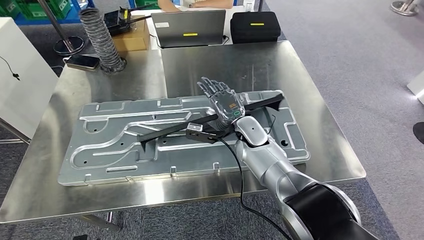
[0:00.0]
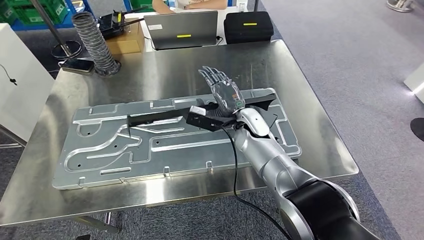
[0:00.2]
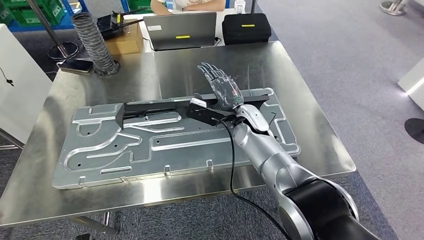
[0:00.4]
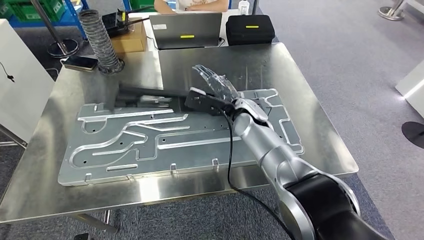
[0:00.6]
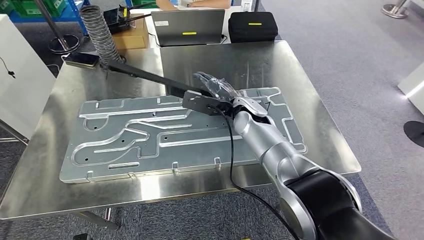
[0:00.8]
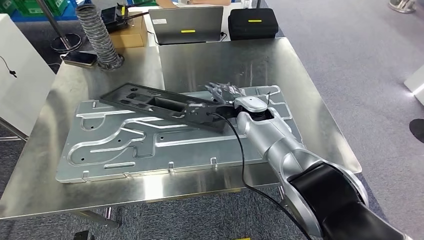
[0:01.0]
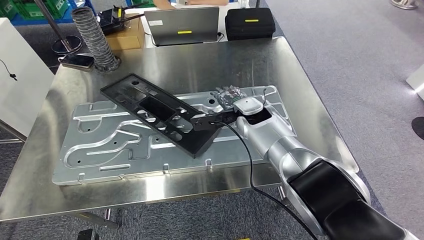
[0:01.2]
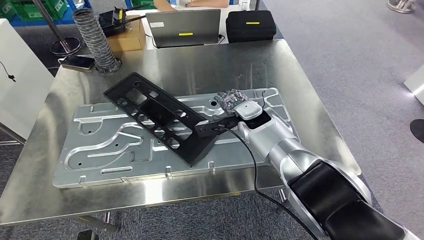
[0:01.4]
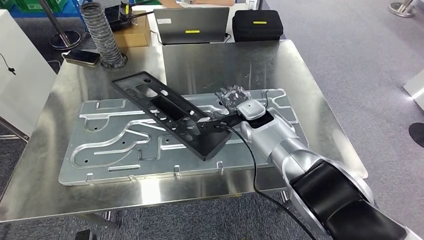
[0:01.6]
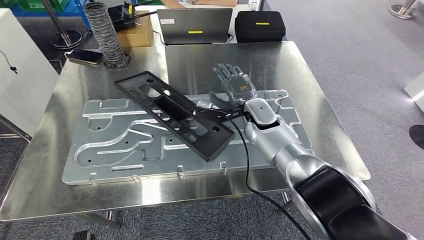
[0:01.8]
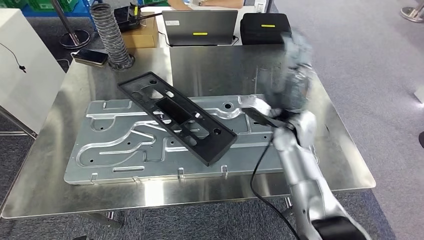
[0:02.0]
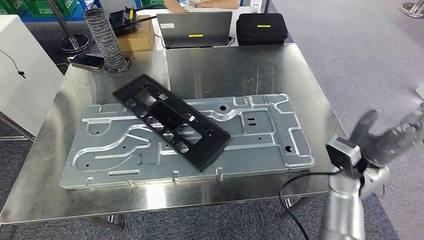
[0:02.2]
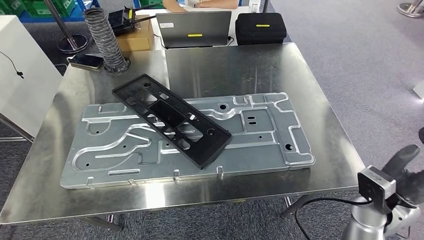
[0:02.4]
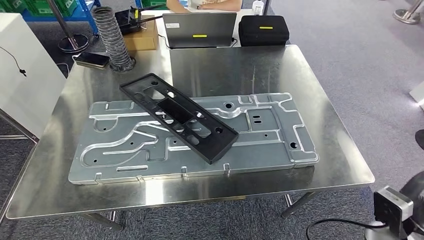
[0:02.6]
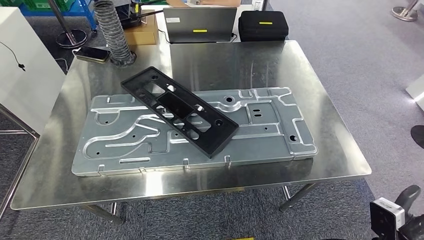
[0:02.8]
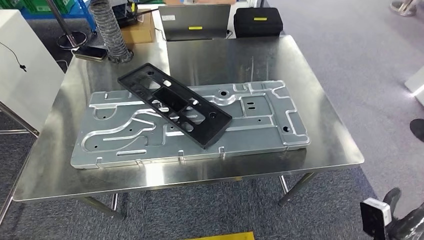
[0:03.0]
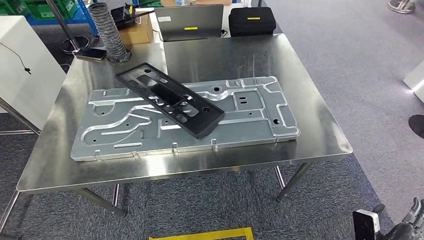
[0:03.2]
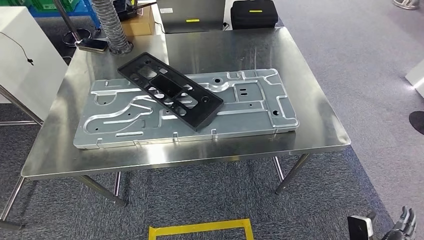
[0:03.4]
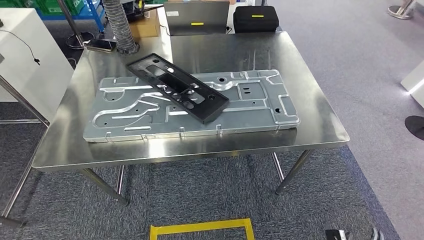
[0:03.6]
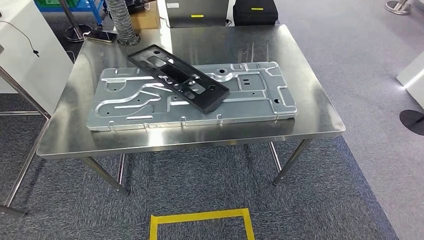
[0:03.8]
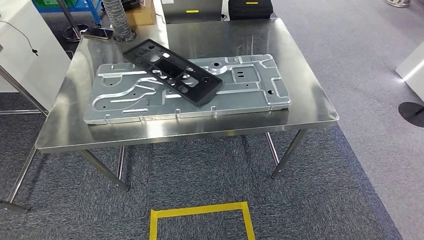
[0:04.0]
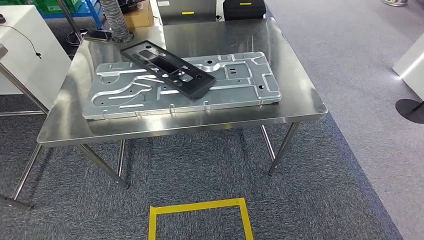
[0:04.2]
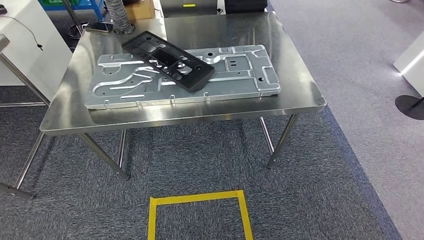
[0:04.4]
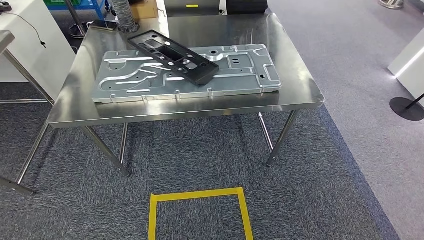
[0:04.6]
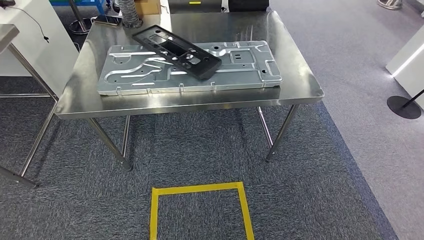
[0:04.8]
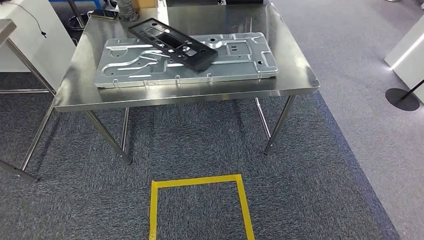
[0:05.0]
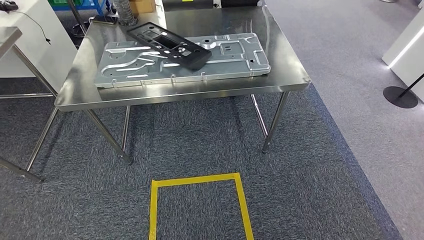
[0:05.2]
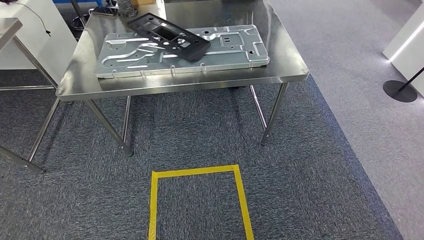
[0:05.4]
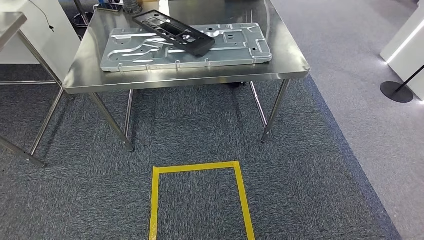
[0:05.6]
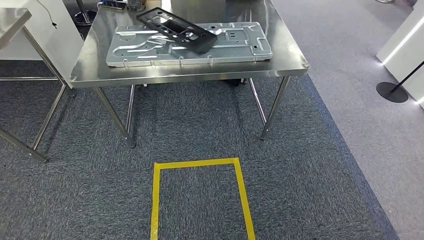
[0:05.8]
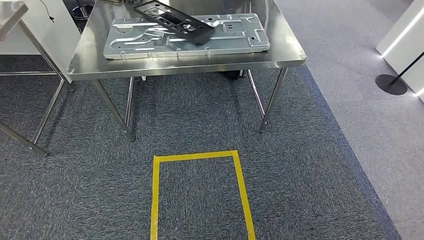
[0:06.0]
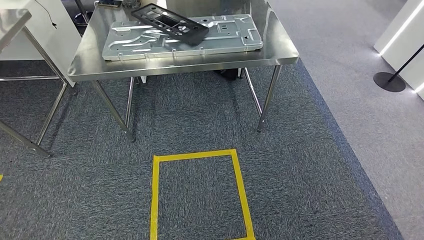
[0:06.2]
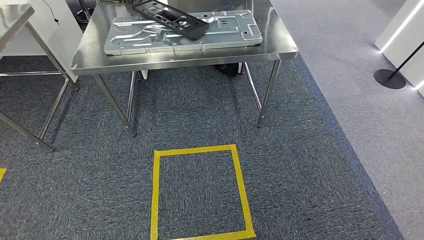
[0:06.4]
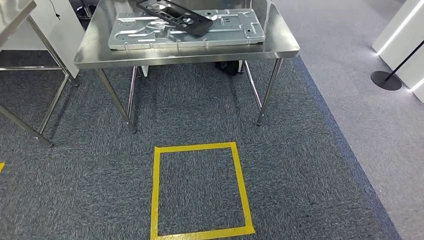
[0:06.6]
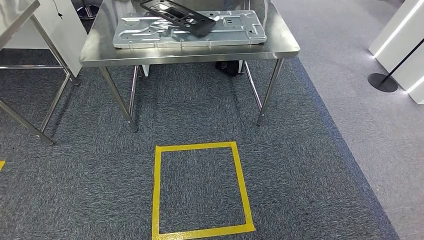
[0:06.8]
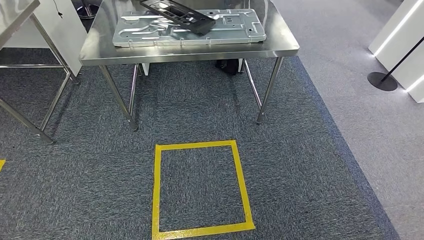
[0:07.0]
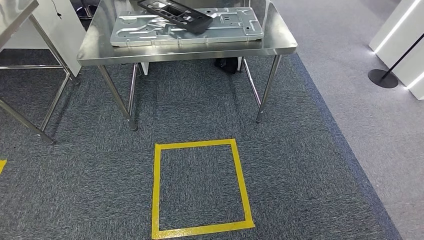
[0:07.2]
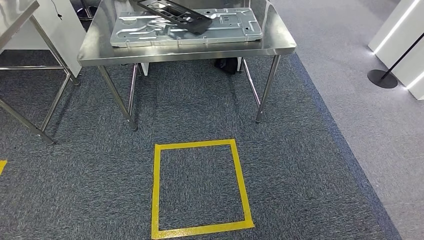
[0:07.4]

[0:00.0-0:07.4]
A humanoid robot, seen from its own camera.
Step, 0:00.0 to 0:02.4: Insert the large parts into the corresponding slots on the workbench.
Step, 0:02.8 to 0:07.4: Return to the initial position at the shelf.

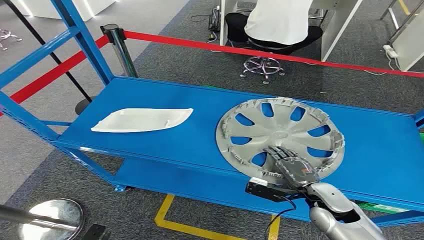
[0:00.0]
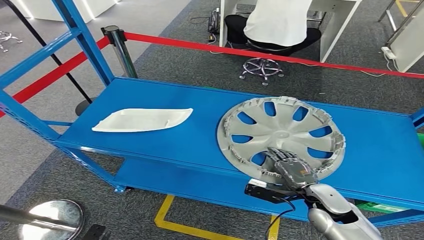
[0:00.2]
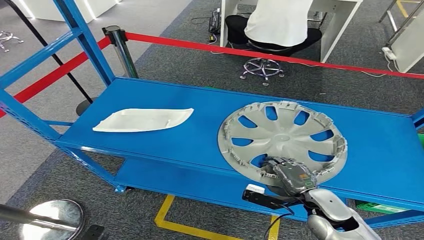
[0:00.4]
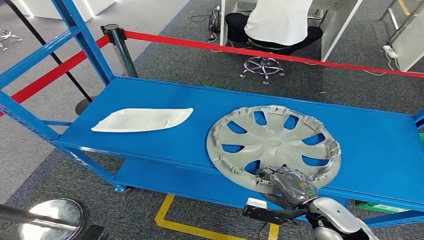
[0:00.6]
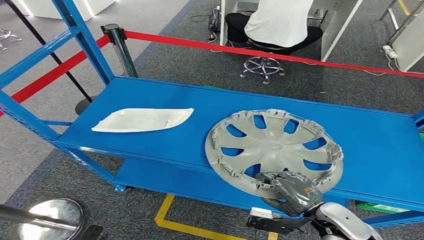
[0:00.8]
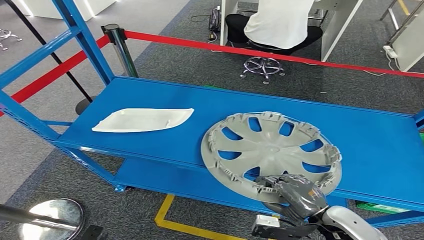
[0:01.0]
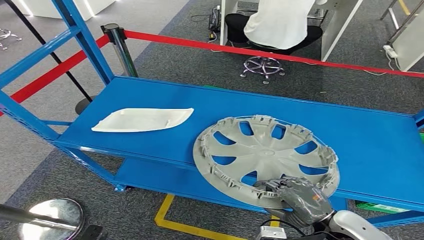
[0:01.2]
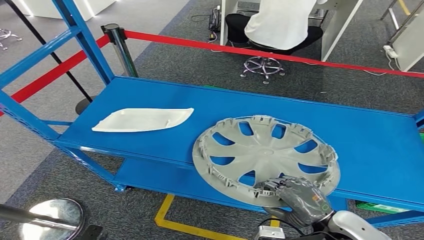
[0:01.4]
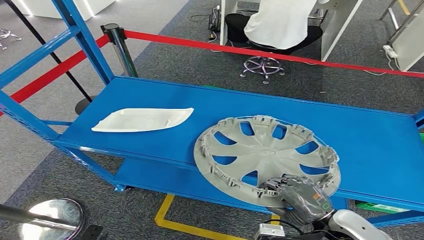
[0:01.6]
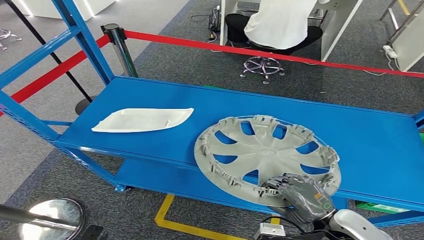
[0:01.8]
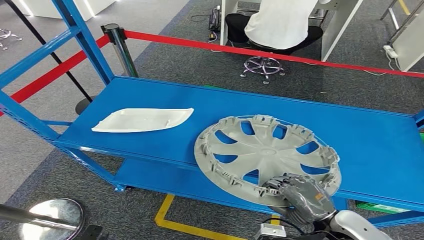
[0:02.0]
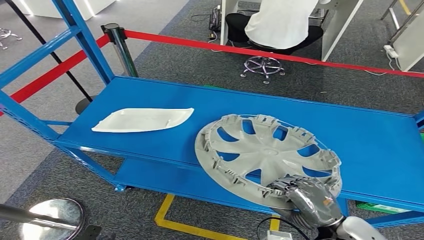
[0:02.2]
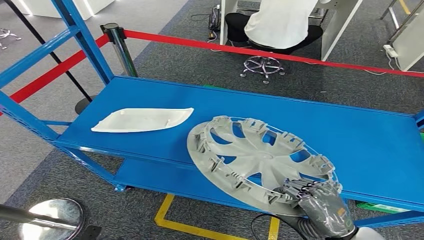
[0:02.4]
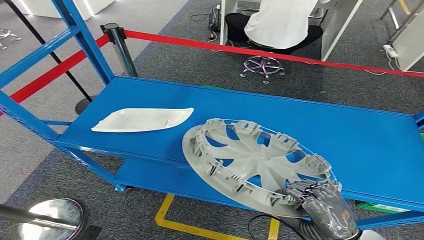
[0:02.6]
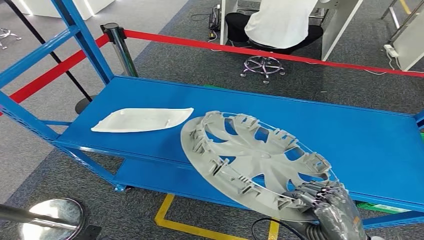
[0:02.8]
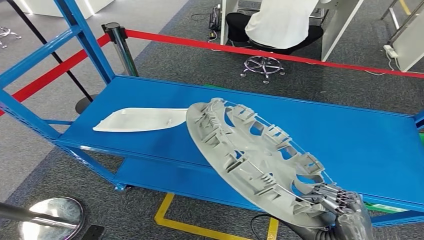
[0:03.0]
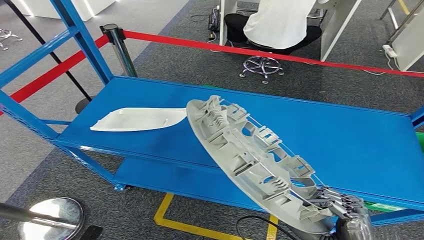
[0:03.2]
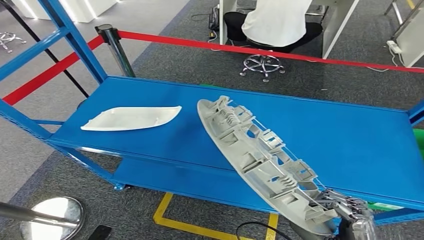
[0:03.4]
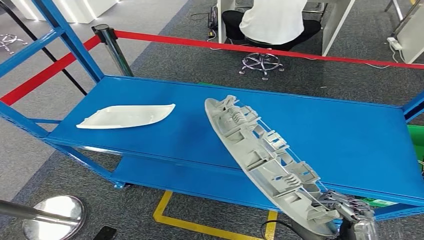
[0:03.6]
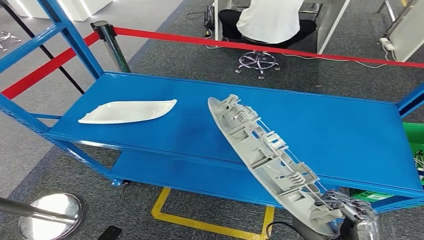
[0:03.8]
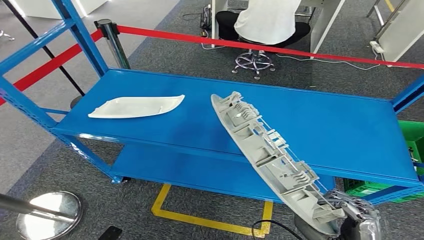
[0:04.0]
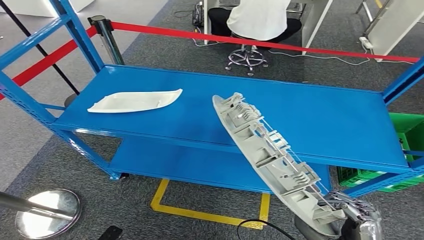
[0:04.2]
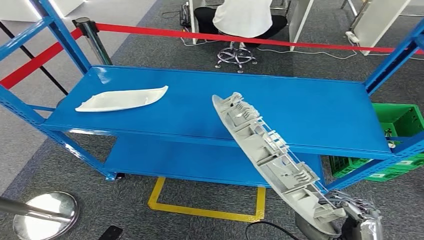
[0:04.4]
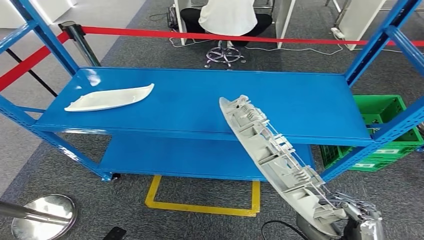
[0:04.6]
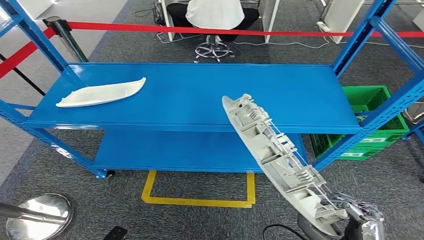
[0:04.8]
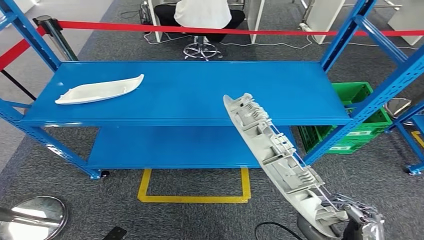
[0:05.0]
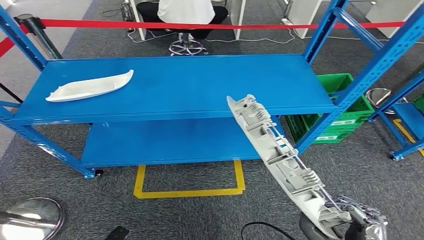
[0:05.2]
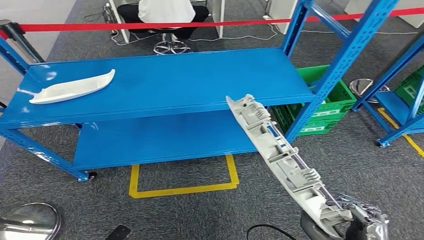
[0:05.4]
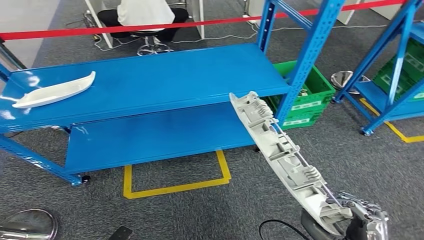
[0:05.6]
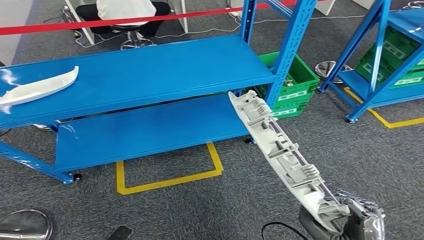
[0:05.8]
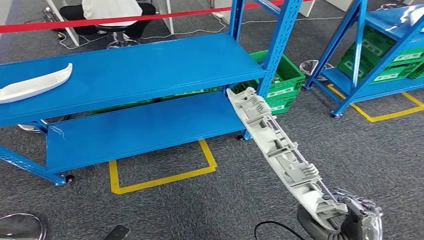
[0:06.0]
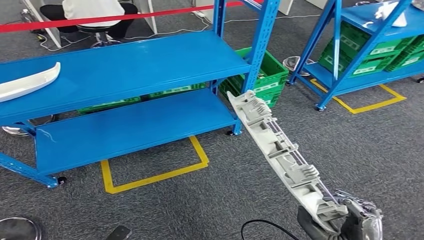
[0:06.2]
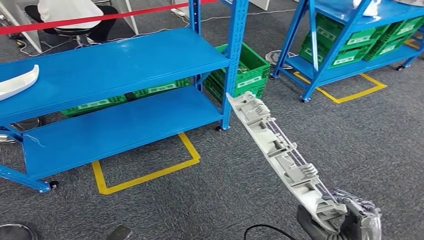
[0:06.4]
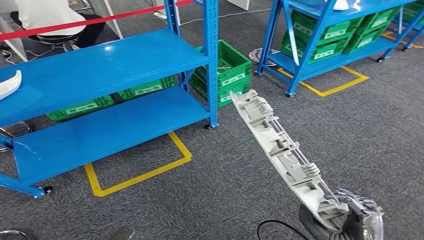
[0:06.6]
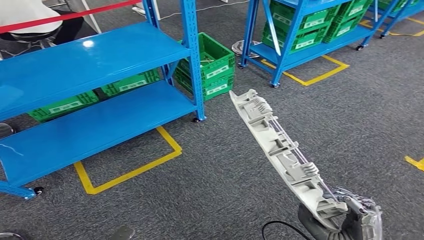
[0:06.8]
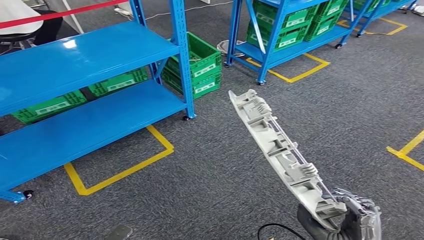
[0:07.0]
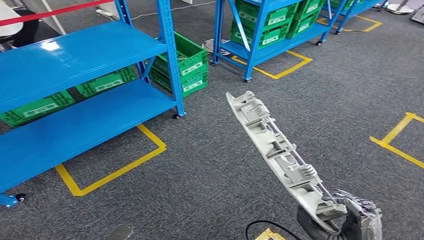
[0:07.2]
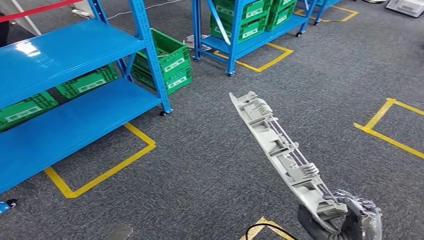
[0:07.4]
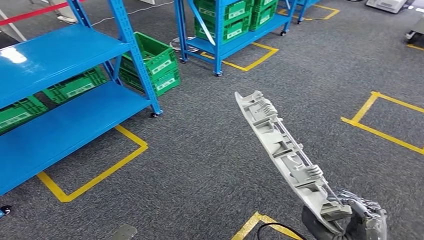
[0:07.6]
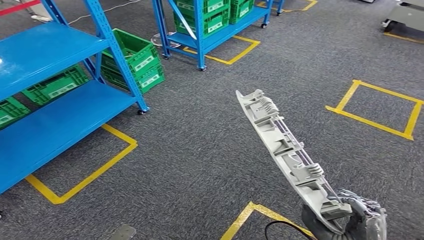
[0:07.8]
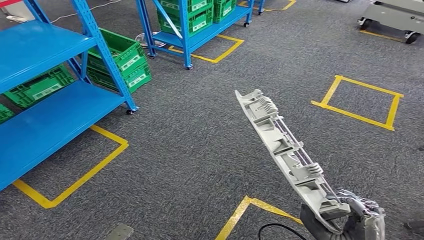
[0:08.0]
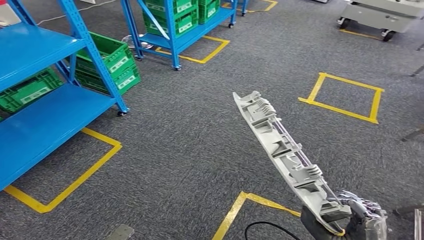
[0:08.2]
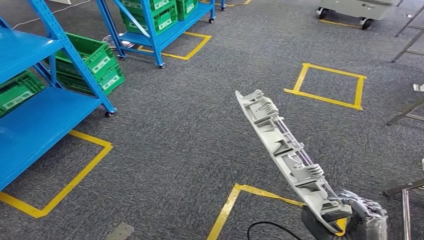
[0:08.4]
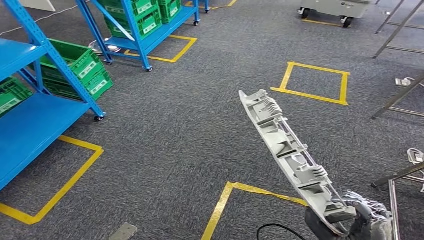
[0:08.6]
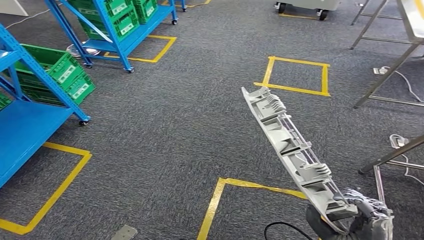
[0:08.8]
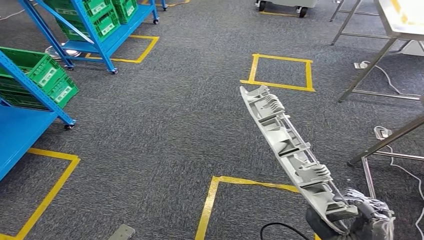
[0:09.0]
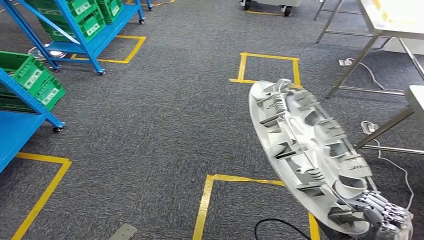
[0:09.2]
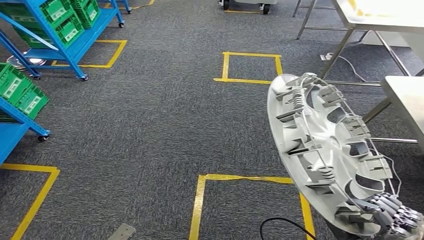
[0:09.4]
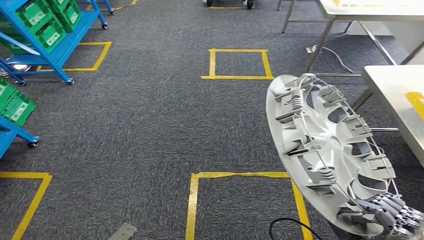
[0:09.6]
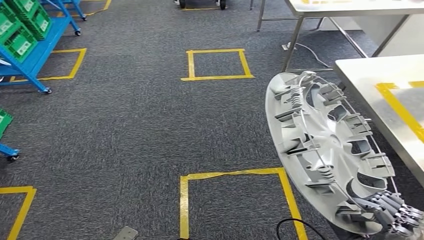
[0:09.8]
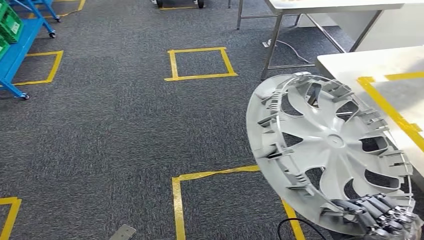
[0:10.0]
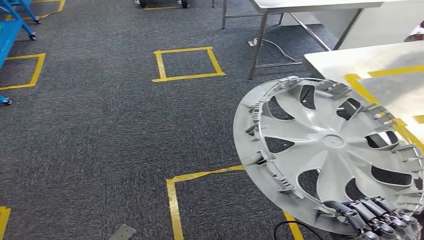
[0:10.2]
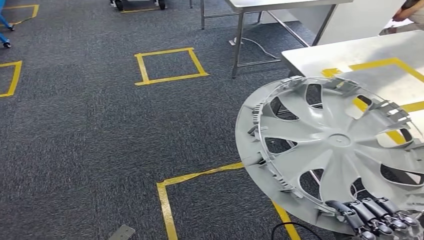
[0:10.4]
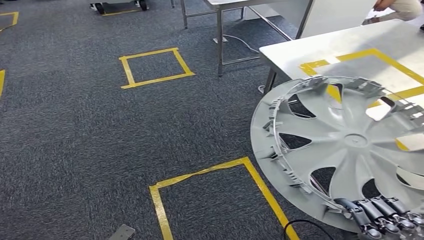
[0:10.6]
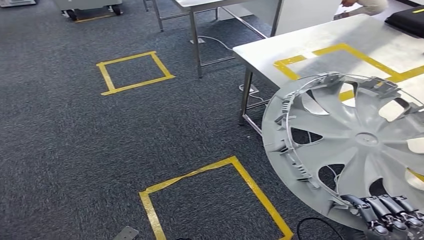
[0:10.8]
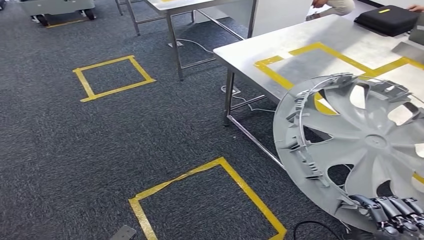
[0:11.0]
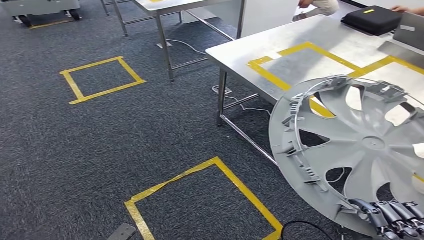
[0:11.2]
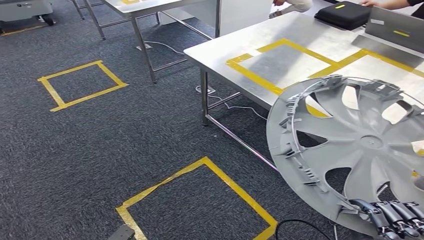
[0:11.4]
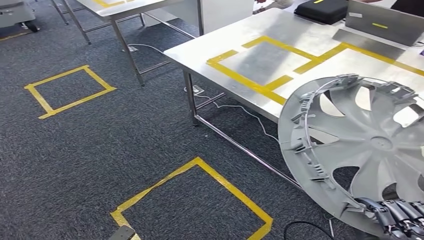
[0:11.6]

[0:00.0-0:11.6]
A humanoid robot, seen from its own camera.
Step, 0:00.0 to 0:05.2: Pick up the small parts from the shelf.
Step, 0:05.6 to 0:11.0: Move the small parts to the workbench.
0:01.4 to 0:02.8: The right hand changes place by roughly 5 cm.
